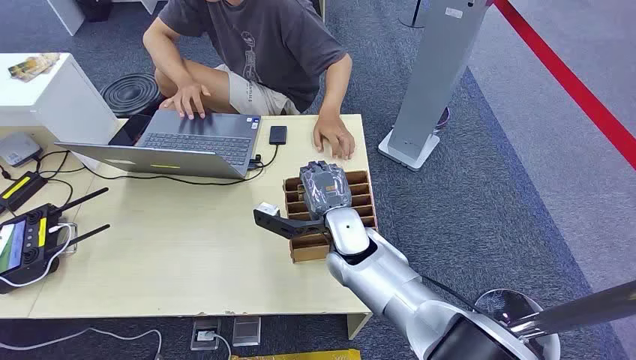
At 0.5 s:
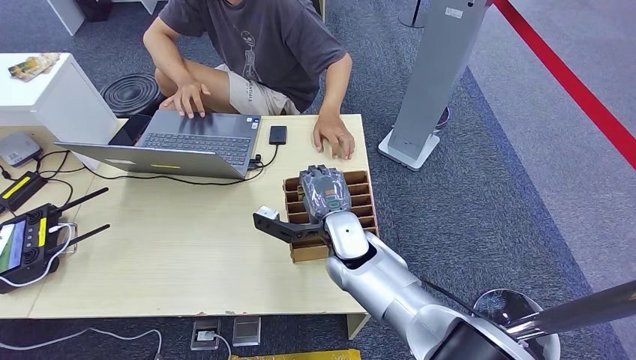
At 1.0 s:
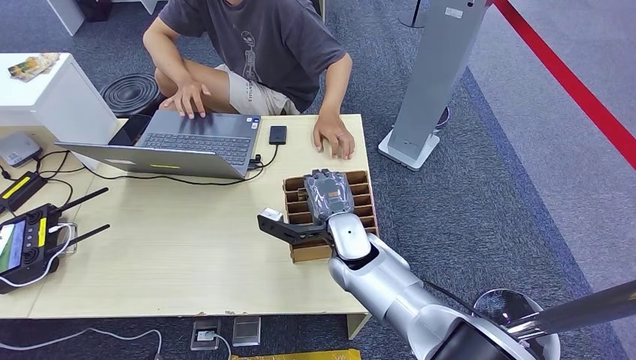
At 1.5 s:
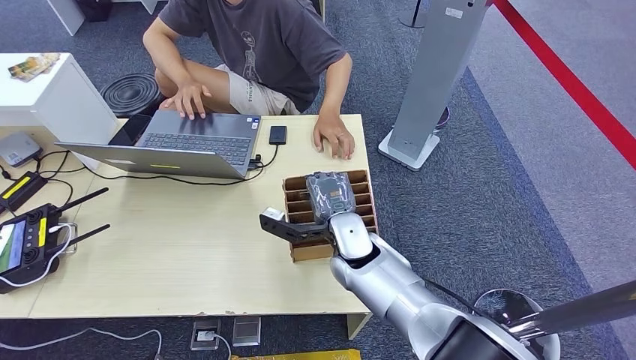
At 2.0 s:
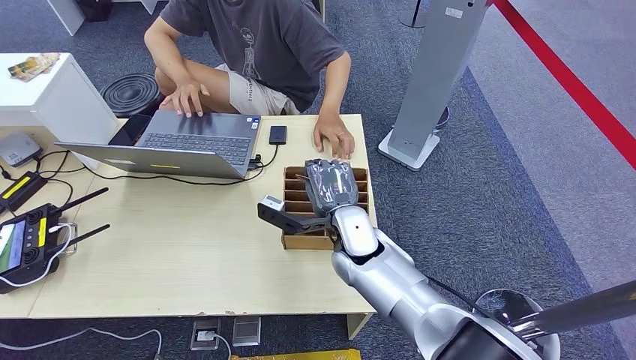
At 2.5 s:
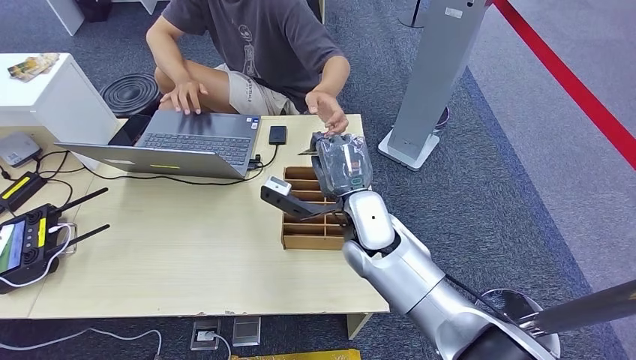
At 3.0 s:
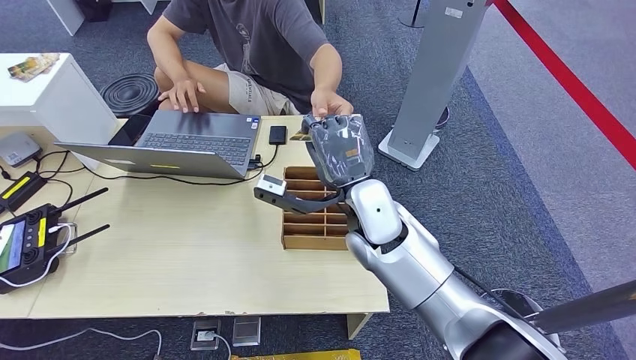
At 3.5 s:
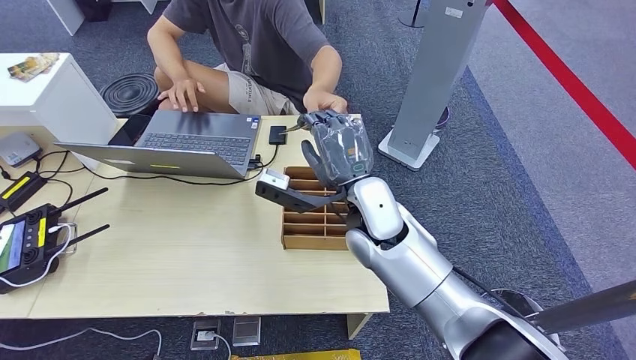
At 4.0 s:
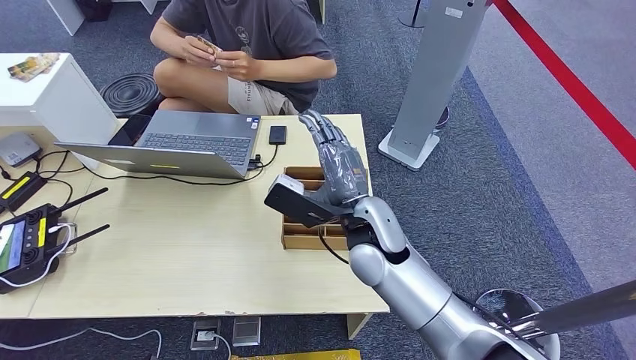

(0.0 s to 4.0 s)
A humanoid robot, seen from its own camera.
Step, 0.0 s - 2.0 s: Pick up the room card from the card holder.
Step, 2.5 s - 4.0 s: Hand the room card to the target.
2.0 s - 4.0 s: The right hand travels upward by roughly 5 cm.
